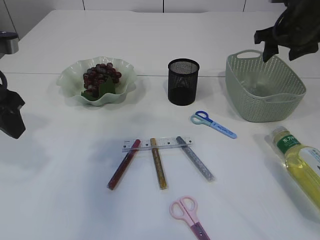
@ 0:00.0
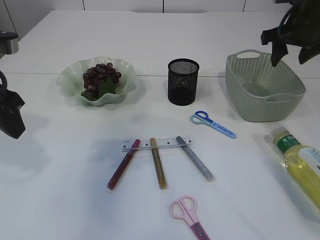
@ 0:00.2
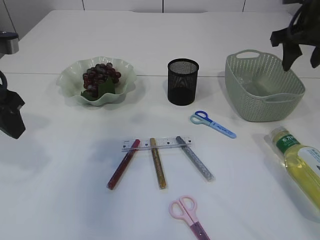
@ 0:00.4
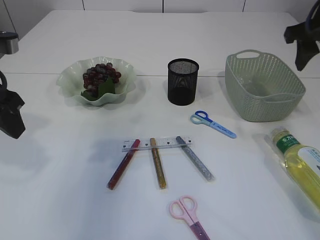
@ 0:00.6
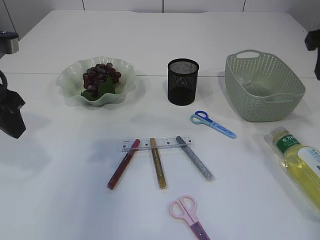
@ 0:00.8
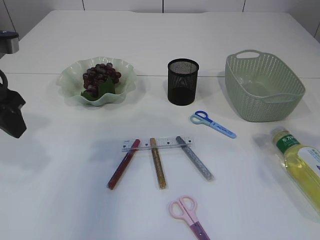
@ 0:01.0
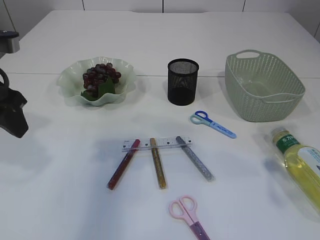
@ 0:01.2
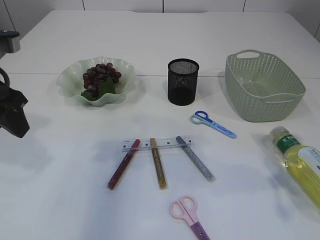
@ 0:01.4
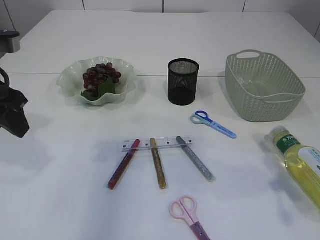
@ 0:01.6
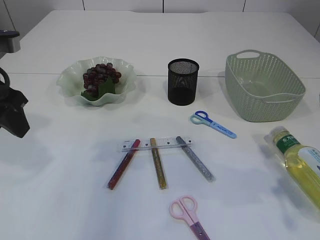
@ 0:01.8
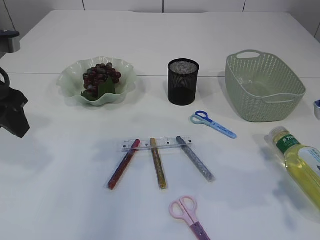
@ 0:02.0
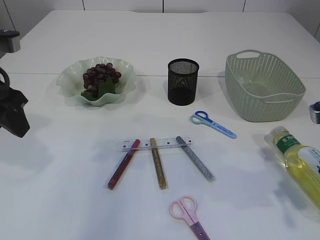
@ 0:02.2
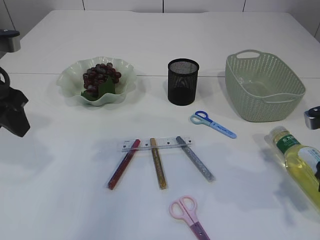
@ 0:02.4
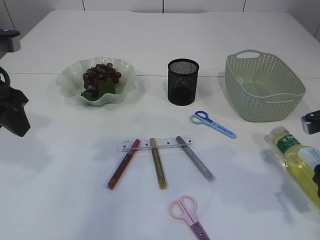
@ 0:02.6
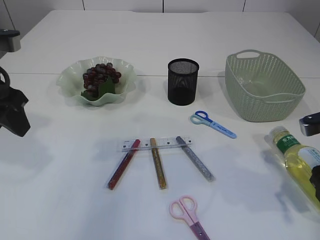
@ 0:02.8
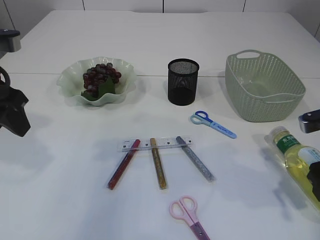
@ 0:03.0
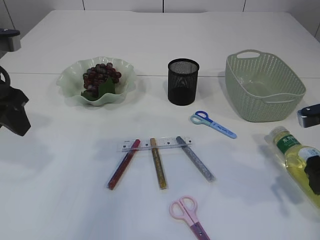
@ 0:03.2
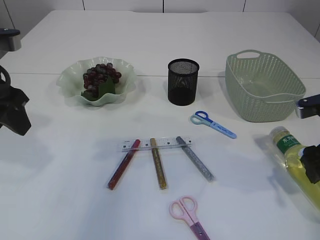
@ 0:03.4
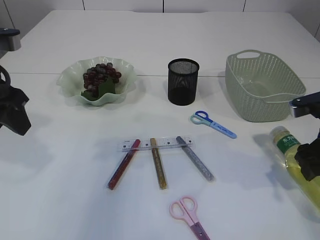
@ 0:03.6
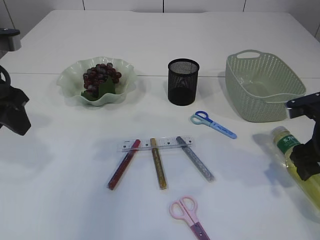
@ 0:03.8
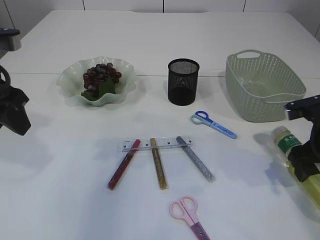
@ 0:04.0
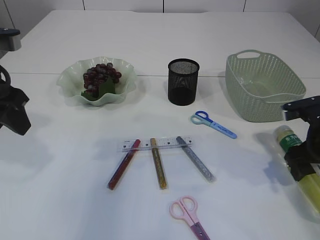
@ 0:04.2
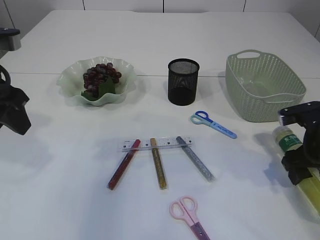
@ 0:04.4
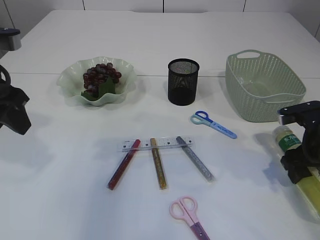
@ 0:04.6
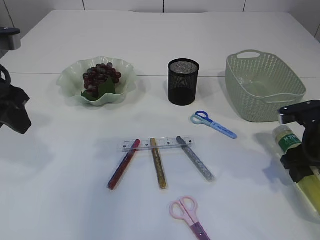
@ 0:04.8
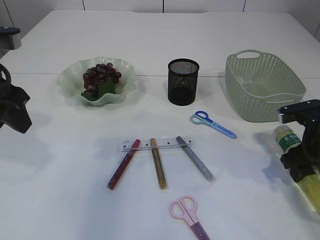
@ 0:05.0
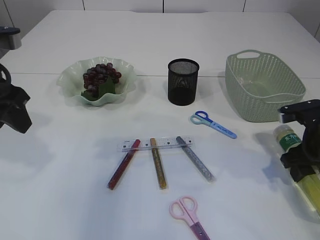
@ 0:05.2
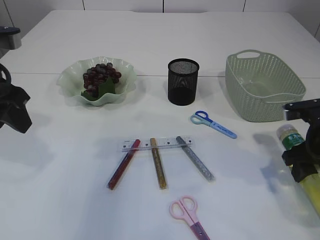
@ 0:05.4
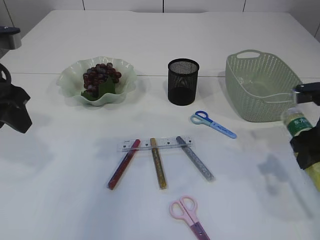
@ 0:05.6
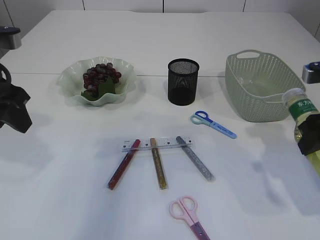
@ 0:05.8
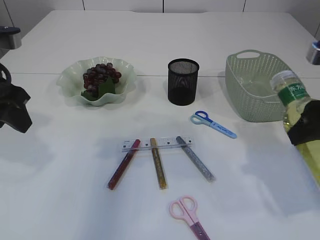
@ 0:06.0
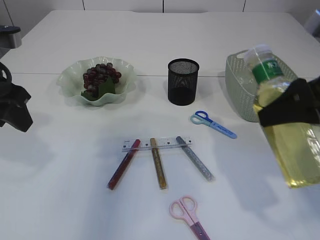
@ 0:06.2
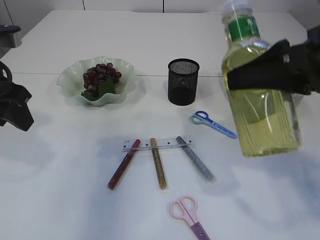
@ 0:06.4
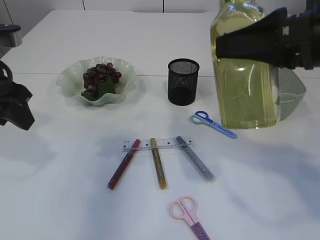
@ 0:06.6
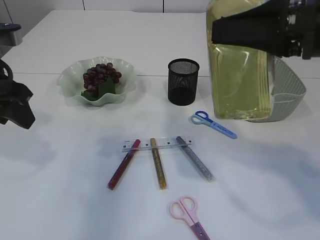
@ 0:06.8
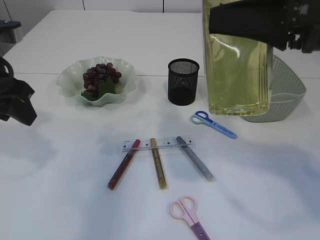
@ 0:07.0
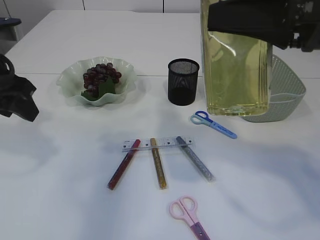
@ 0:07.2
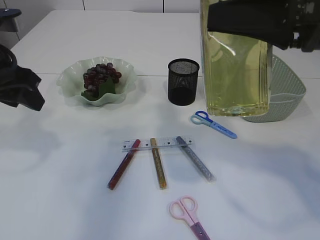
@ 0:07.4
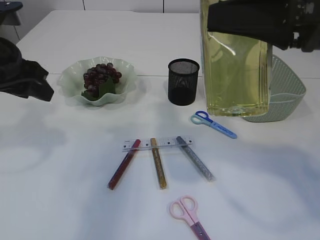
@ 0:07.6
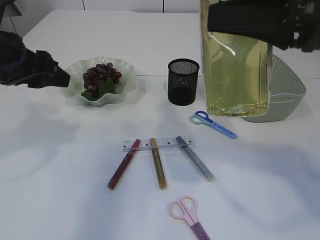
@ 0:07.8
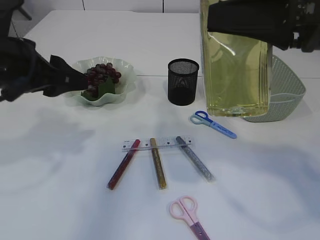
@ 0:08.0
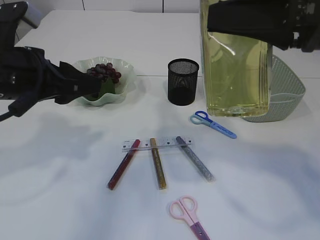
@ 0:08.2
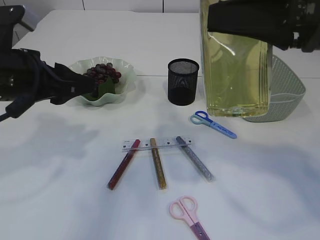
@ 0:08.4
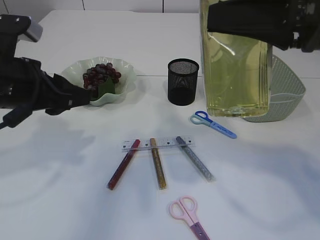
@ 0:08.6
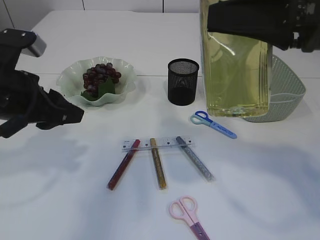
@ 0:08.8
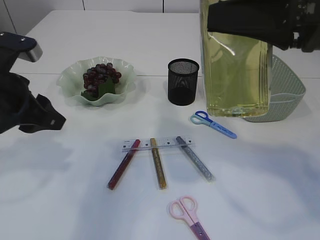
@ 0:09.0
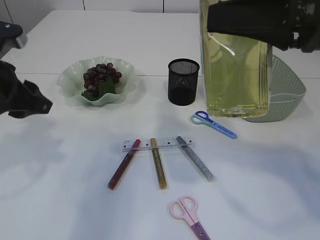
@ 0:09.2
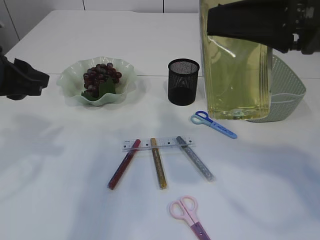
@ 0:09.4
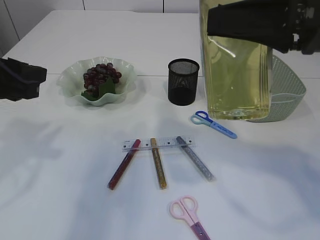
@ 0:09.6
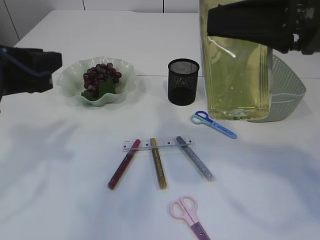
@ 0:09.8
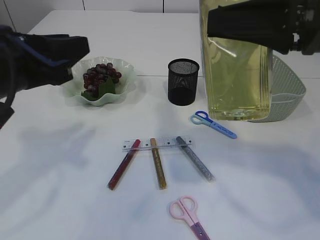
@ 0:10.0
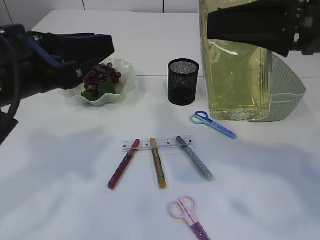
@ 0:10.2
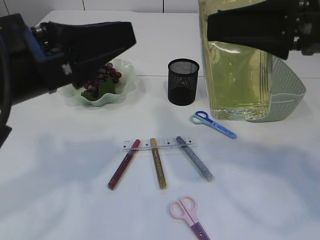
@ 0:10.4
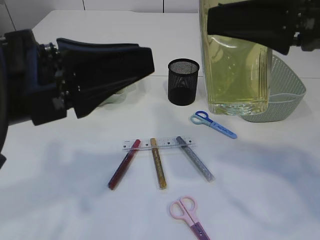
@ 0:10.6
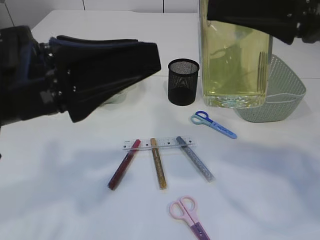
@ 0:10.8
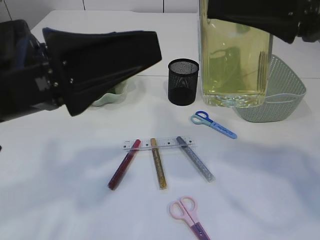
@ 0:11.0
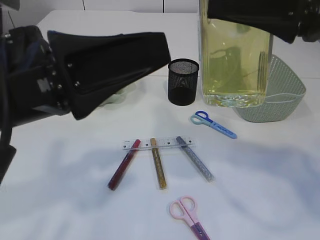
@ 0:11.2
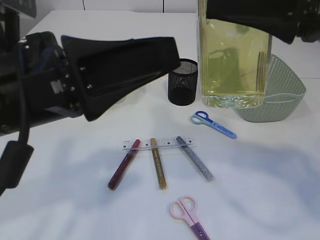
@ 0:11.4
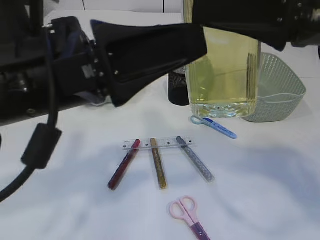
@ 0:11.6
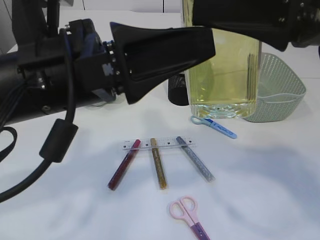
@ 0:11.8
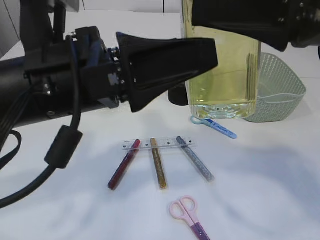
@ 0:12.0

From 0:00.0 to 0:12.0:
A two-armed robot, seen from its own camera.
Step, from 0:00.6 to 0:06.2: Pick up the bottle with the right arm.
From 0:00.0 to 0:01.6: The right gripper moves backward, some 20 cm.
From 0:01.6 to 0:03.0: The right gripper heads downward, covering approximately 5 cm.
From 0:03.0 to 0:04.4: The right gripper shifts approximately 5 cm forward.
From 0:04.4 to 0:06.0: The right gripper moves upward and backward, some 15 cm.
From 0:06.0 to 0:07.6: The right gripper heads upward and to the left, covering about 10 cm.
From 0:07.6 to 0:09.0: The left gripper ends up approximately 5 cm from where it was.
From 0:09.0 to 0:10.4: The left gripper travels backward, to the right and upward by some 10 cm.
From 0:10.4 to 0:12.0: The left gripper goes about 5 cm to the right, and opens up.

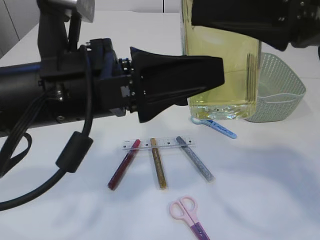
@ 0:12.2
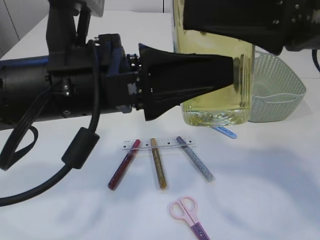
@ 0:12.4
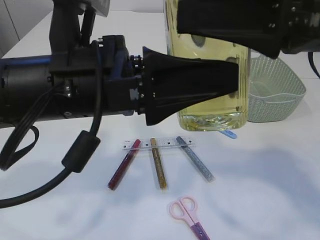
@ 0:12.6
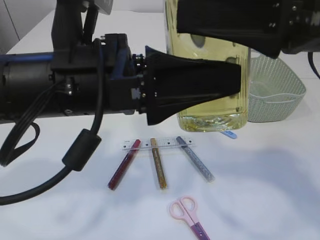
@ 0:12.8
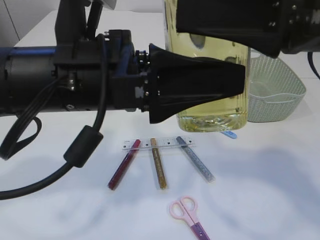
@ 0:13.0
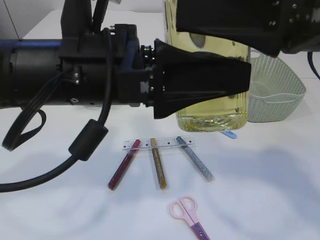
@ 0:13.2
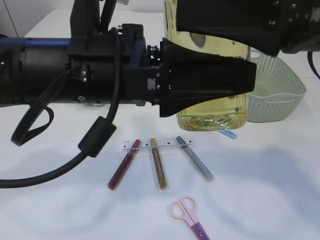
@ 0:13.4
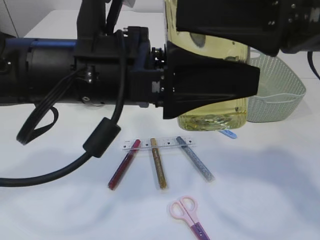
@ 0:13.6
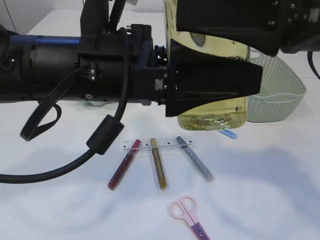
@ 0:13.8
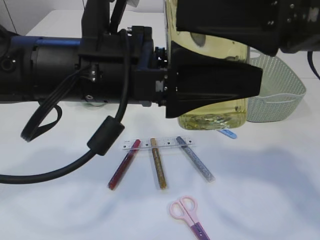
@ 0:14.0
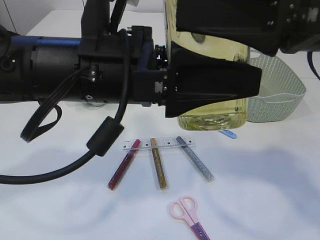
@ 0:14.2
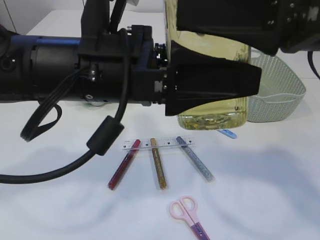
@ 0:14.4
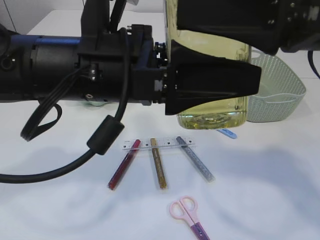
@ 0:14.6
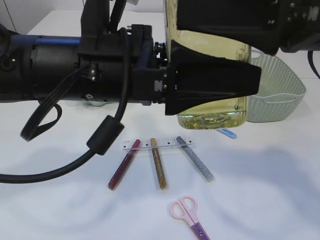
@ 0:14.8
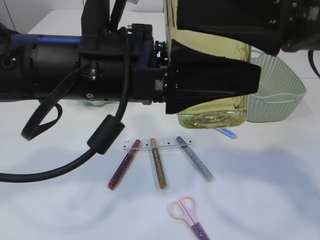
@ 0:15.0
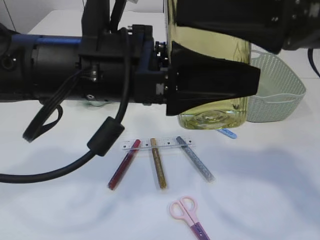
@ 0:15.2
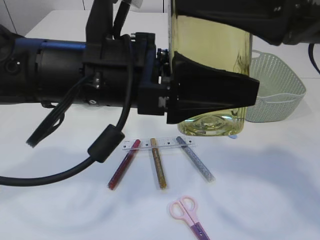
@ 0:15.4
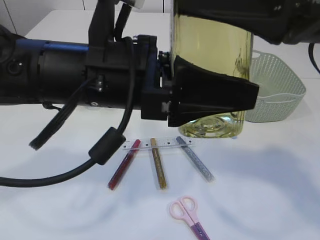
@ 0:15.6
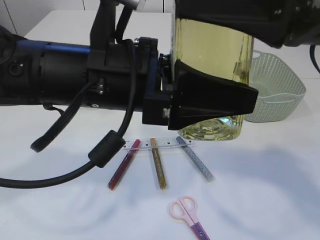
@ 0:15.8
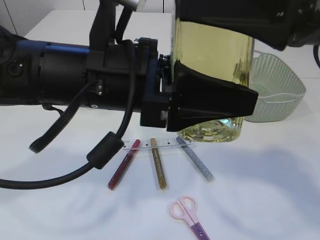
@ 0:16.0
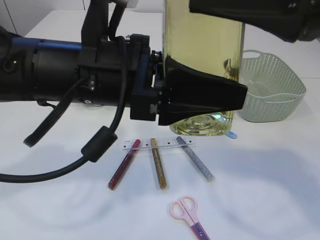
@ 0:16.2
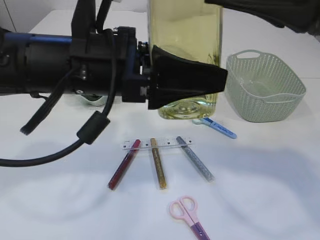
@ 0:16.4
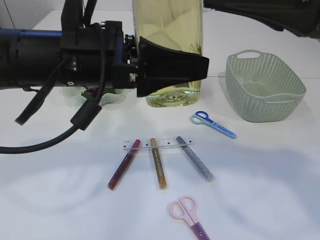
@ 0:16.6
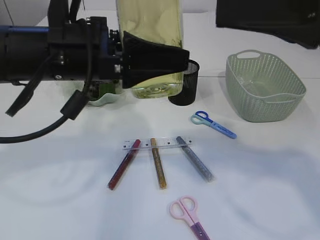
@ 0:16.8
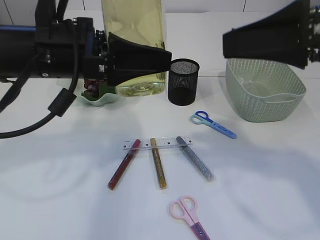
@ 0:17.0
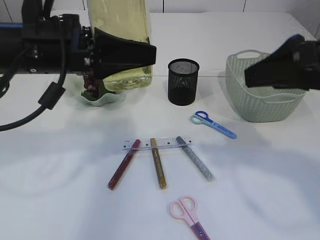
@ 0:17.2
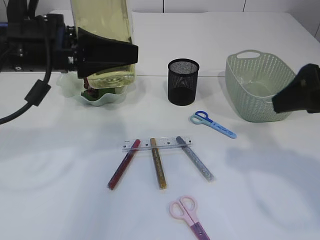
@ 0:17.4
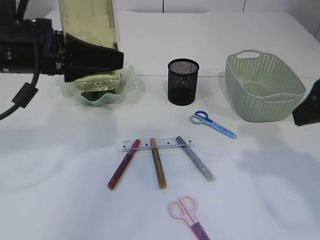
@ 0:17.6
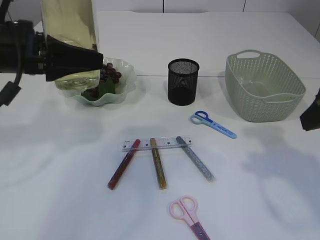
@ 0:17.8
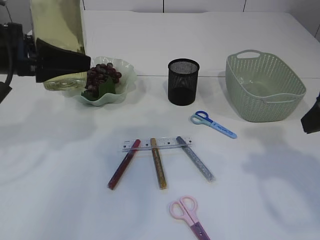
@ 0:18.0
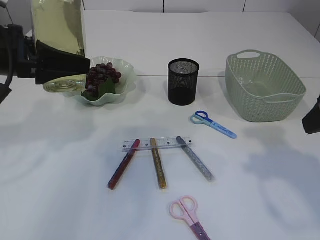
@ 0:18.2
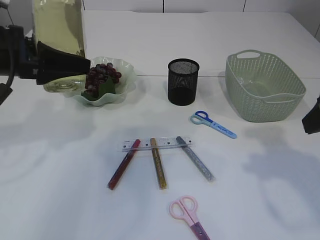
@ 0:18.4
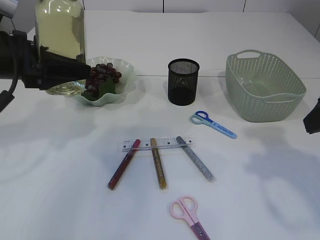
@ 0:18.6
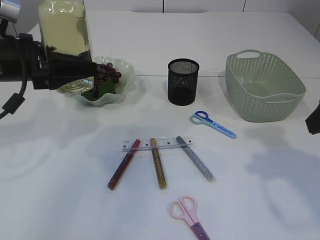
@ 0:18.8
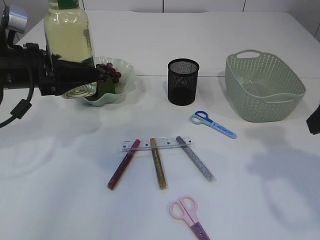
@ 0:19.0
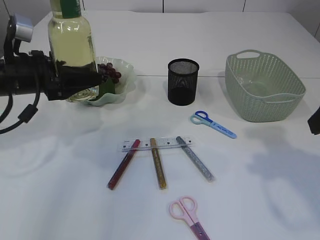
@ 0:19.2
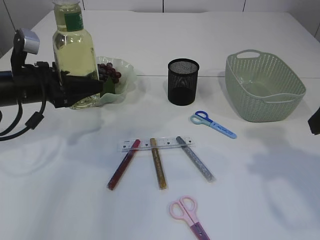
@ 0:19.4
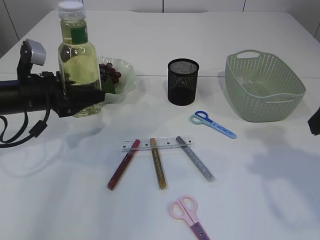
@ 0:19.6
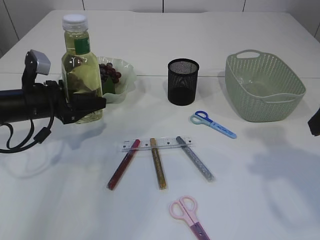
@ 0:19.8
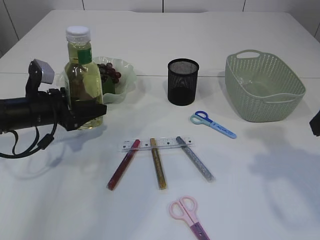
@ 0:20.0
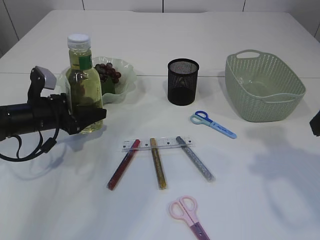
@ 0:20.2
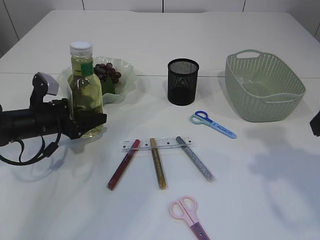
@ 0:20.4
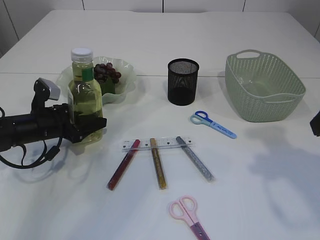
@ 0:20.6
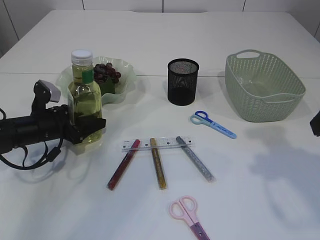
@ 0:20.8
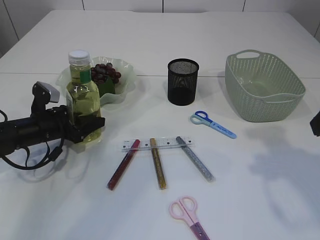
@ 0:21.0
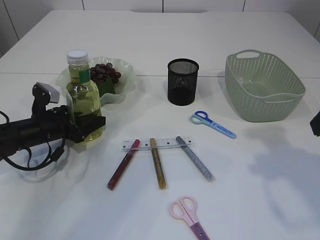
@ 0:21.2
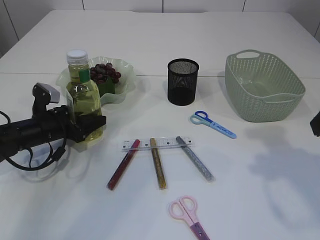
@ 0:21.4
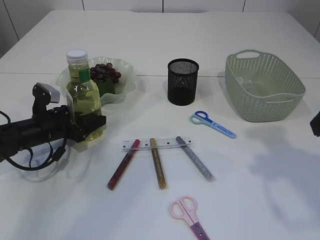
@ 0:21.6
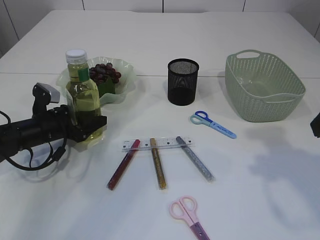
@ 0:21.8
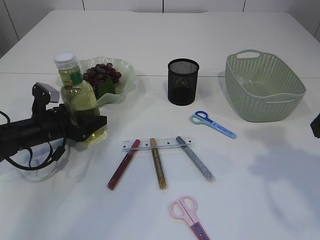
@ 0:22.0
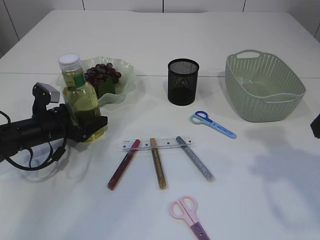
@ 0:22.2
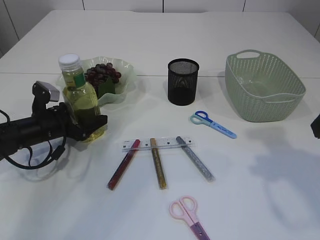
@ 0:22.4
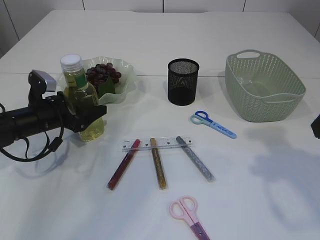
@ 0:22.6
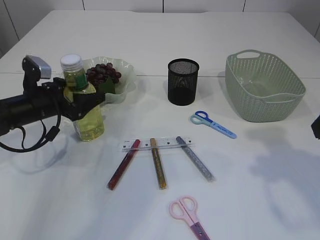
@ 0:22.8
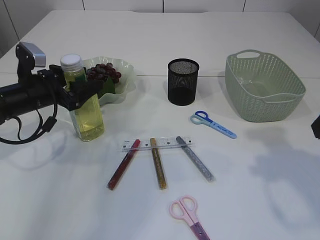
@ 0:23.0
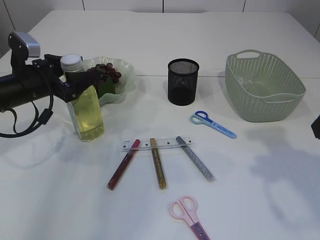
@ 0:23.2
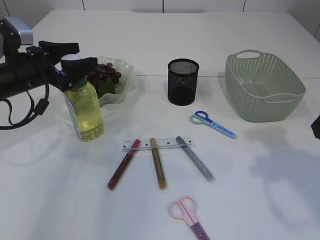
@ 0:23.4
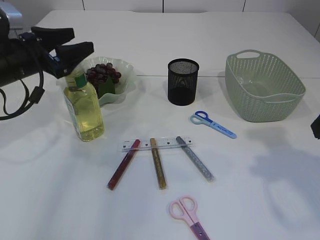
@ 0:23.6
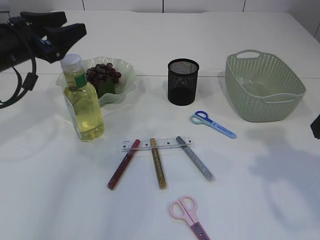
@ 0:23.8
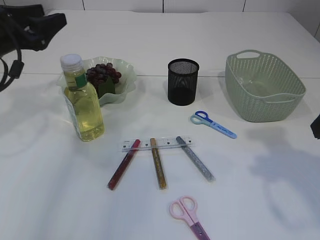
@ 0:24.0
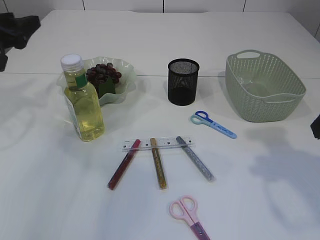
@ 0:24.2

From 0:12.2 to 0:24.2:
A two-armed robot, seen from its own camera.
Step, from 0:12.2 to 0:17.0: transfer the bottle to the left arm.
Step, from 0:17.2 to 0:23.8: Place the bottle.
From 0:13.8 to 0:15.2: The left gripper closes its fingers.
From 0:16.6 to 0:18.2: The left gripper shifts about 15 cm to the left and forward. Meanwhile the right gripper moves to the right and downward, some 10 cm.
From 0:18.2 to 0:19.8: The left gripper shifts roughly 15 cm downward and forward.
From 0:19.8 to 0:21.2: The left gripper shifts some 10 cm downward.
From 0:21.2 to 0:22.6: The left gripper opens.
From 0:22.6 to 0:24.2: The left gripper is displaced upward and to the left by about 20 cm.
